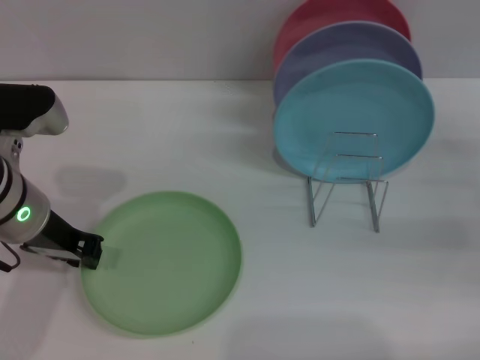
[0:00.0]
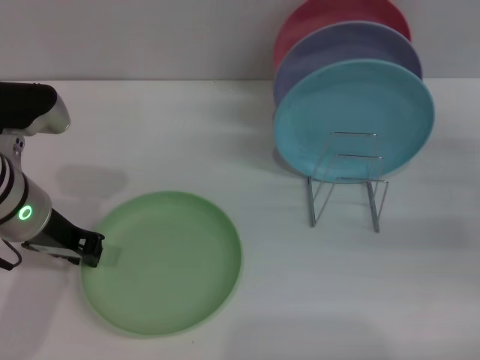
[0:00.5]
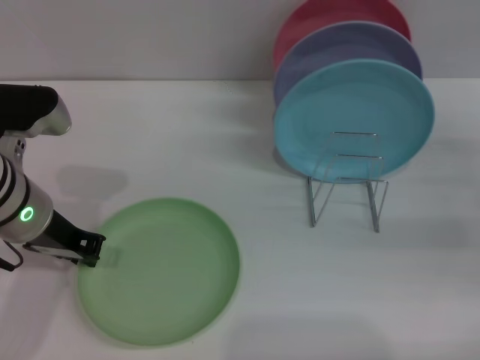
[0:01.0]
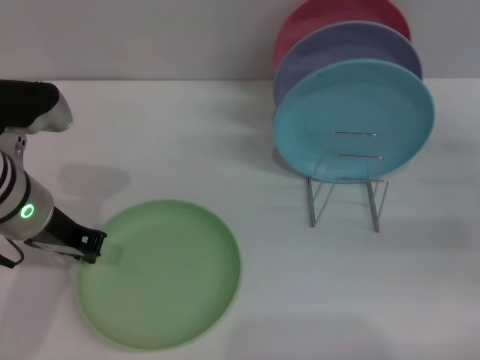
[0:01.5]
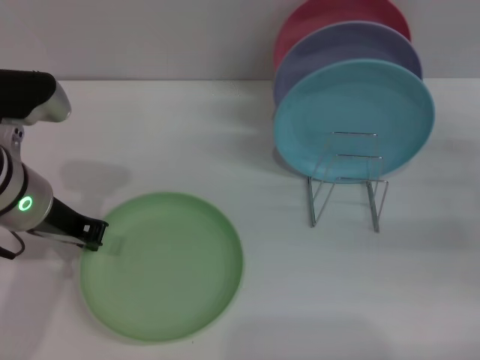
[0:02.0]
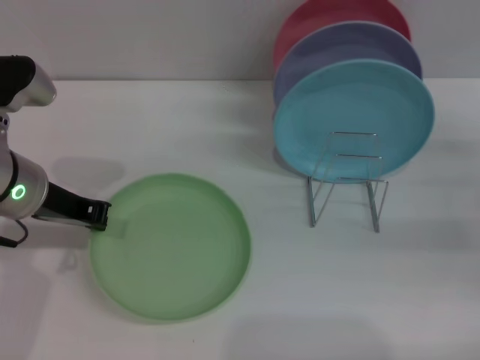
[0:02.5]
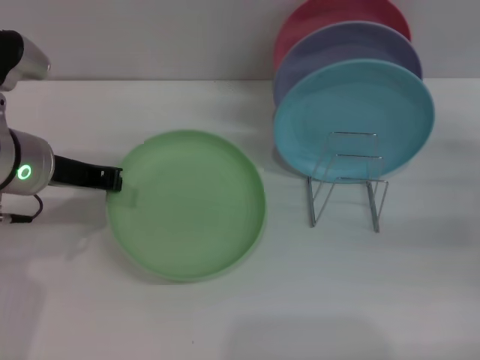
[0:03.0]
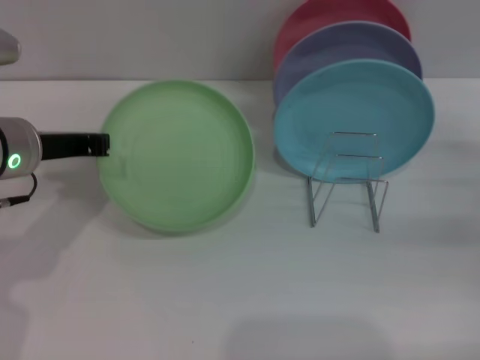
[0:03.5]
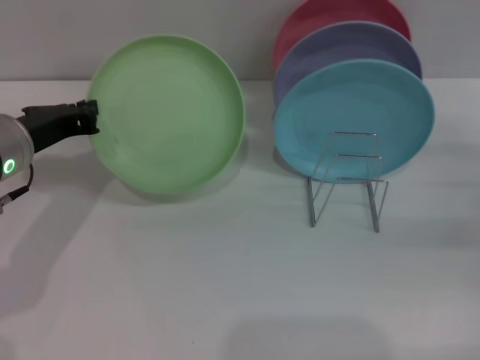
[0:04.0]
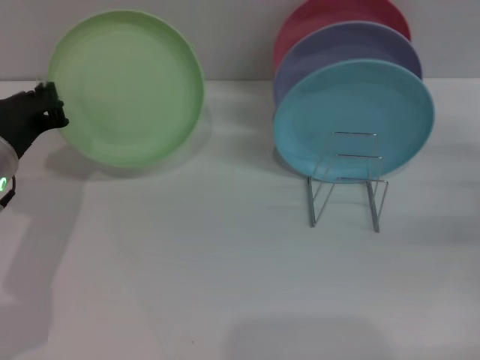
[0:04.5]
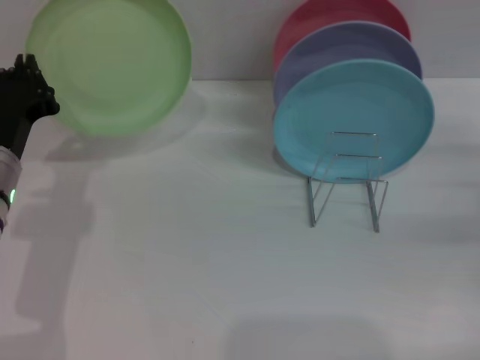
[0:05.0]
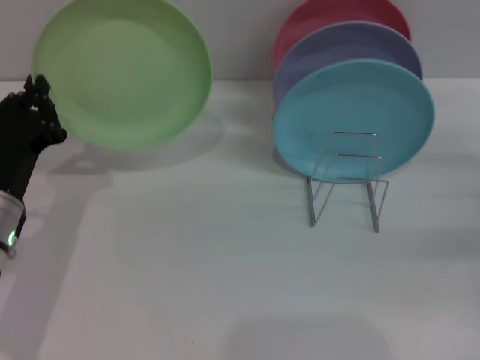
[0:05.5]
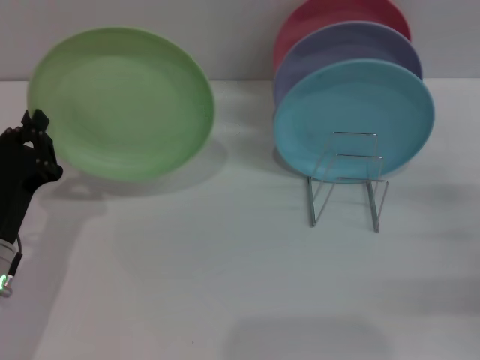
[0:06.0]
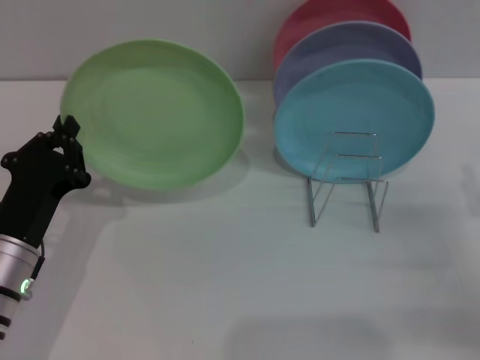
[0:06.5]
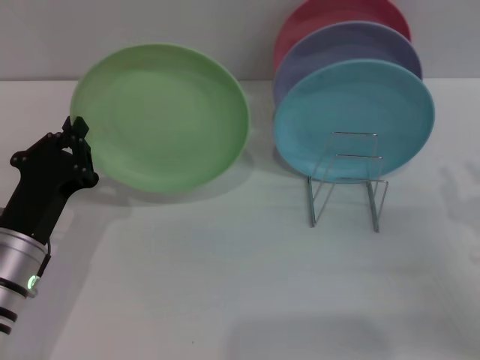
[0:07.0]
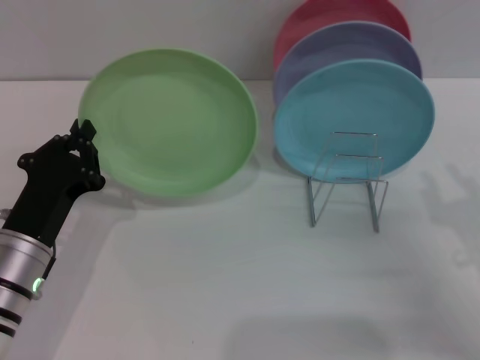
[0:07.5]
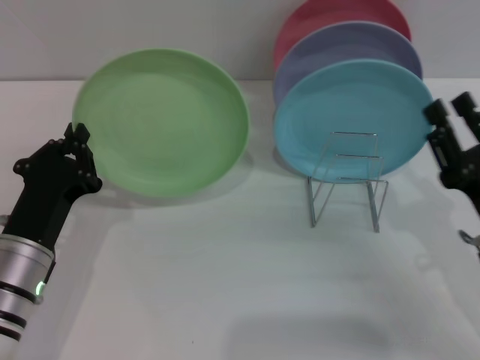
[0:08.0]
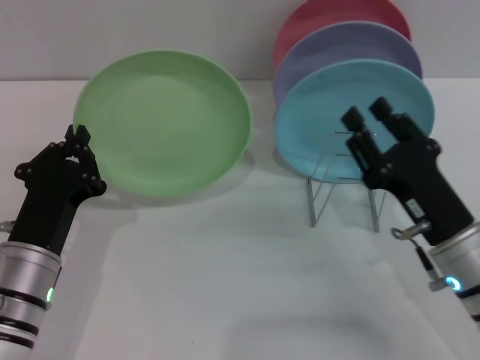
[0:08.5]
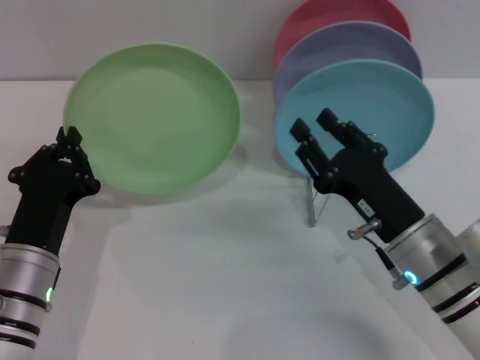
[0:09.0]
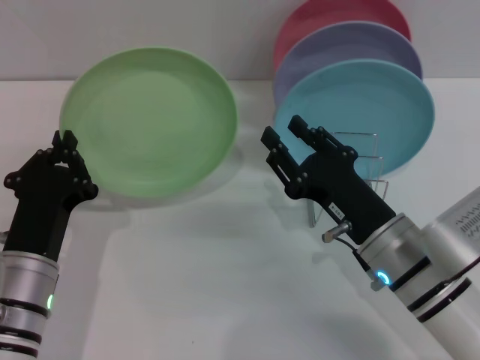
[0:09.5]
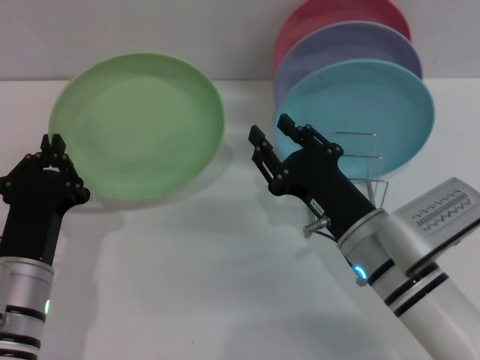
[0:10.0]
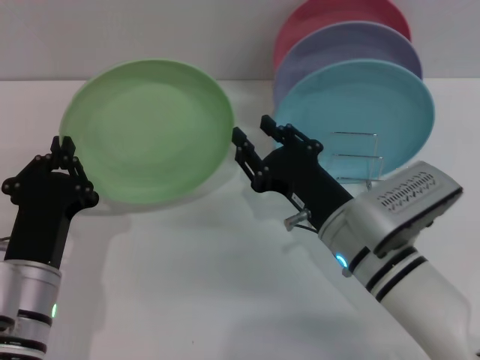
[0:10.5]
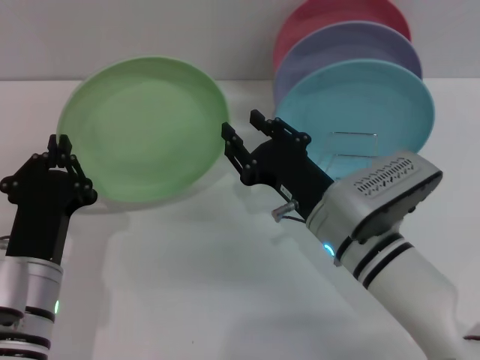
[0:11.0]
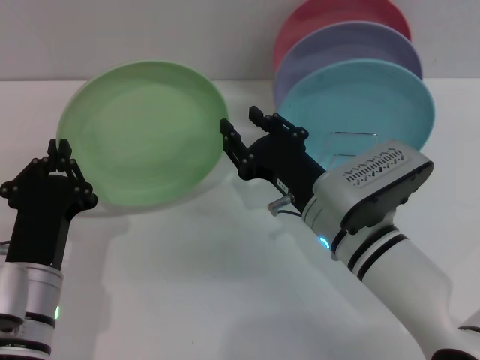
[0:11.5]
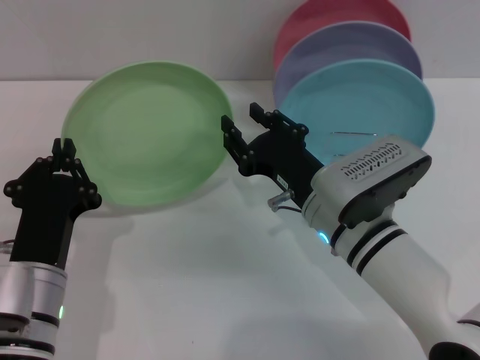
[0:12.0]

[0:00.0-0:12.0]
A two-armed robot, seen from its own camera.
Task of the whole recording: Grip the plate with one hand, pass it to the other, then set it on the shelf.
Step, 0:00.0 to 0:05.0: Pick up the plate with the left gripper.
0:00.0 to 0:02.0: Neither gripper changes place.
0:04.0 to 0:06.0: The left gripper shifts approximately 15 cm downward and backward. The right gripper moves backward, approximately 5 cm.
0:06.0 to 0:08.0: The right gripper moves to the left, roughly 10 cm.
0:08.0 to 0:10.0: The right gripper travels to the left by about 10 cm.
0:10.0 to 0:12.0: The grippers make only small movements.

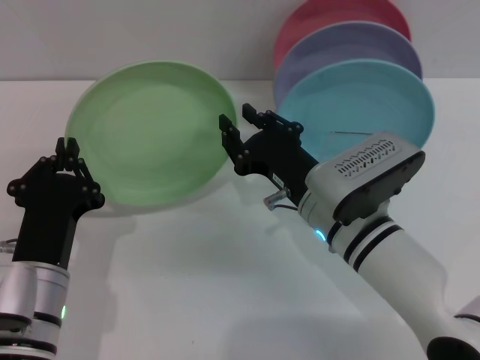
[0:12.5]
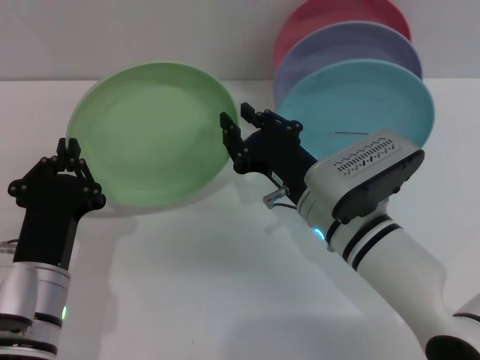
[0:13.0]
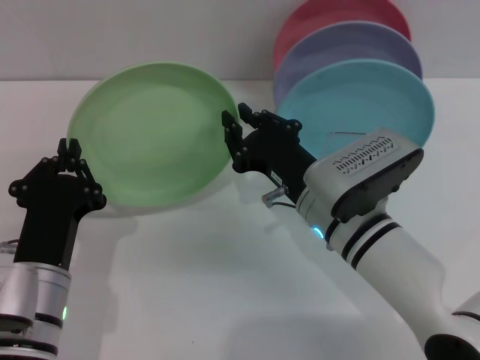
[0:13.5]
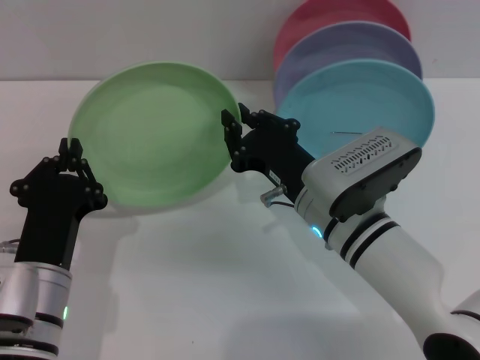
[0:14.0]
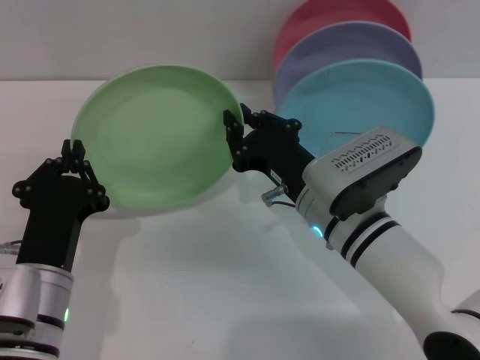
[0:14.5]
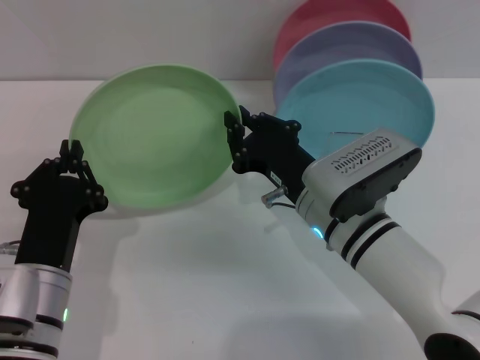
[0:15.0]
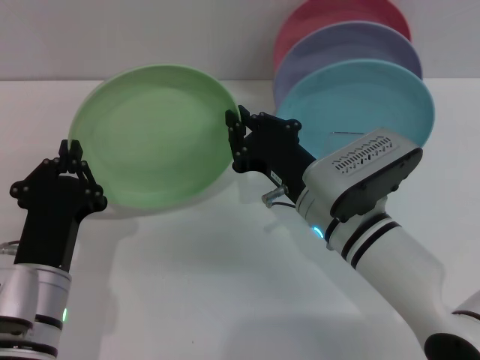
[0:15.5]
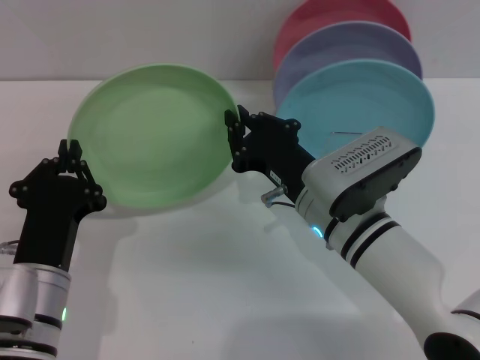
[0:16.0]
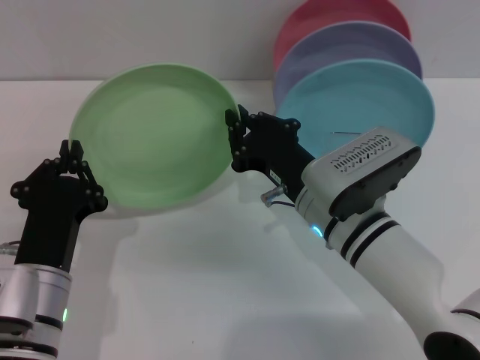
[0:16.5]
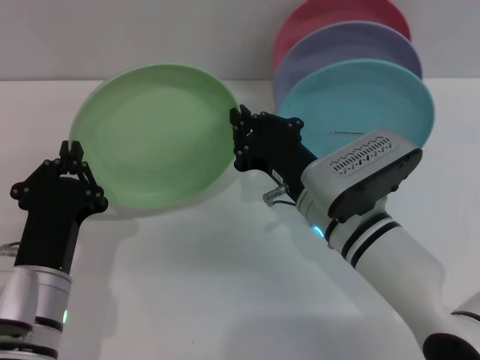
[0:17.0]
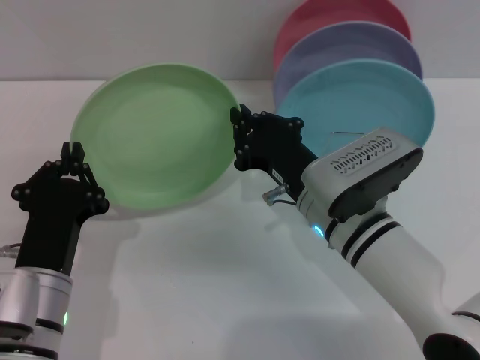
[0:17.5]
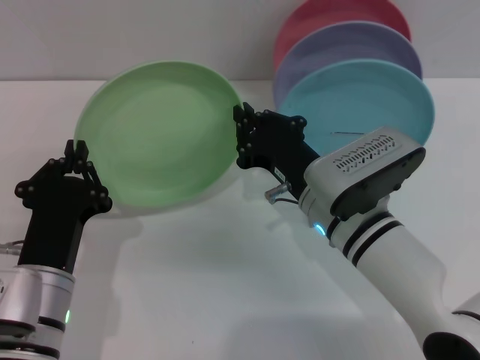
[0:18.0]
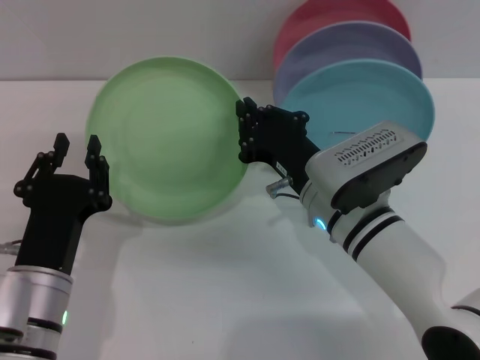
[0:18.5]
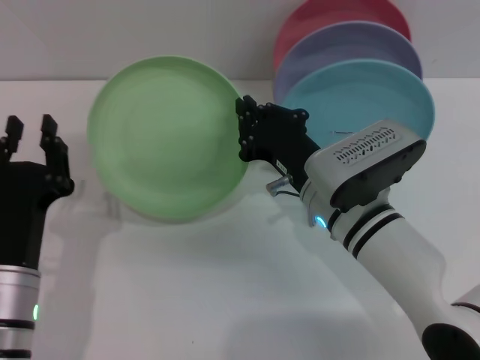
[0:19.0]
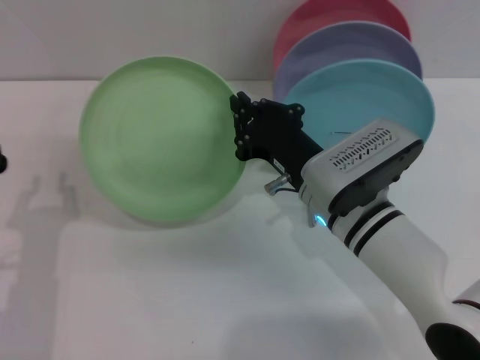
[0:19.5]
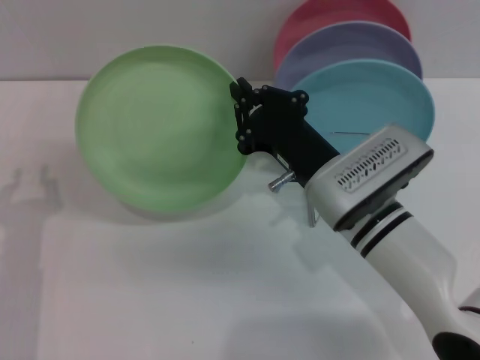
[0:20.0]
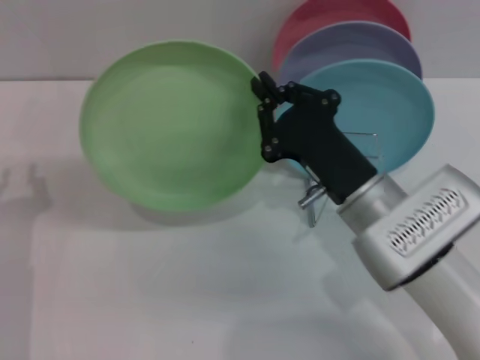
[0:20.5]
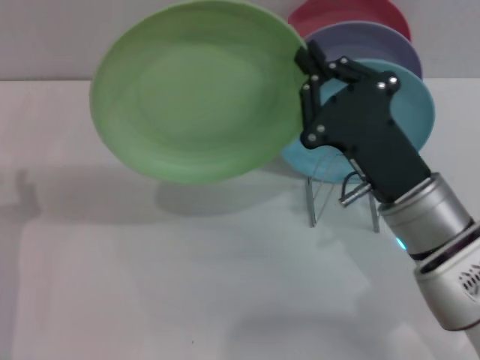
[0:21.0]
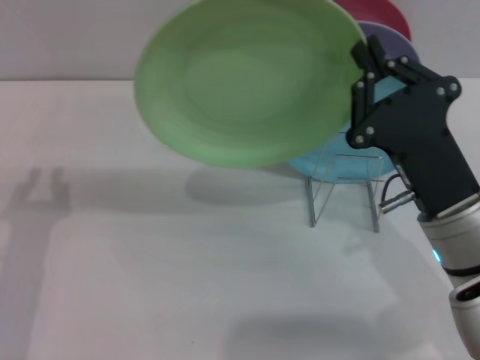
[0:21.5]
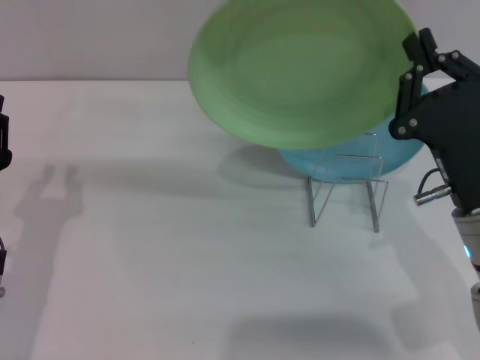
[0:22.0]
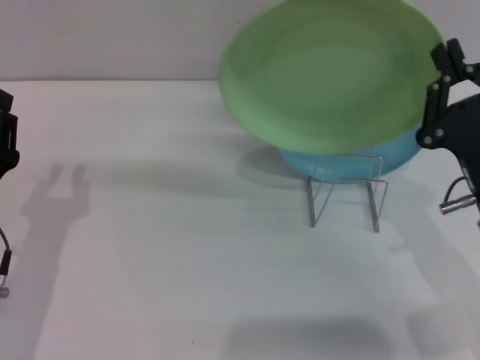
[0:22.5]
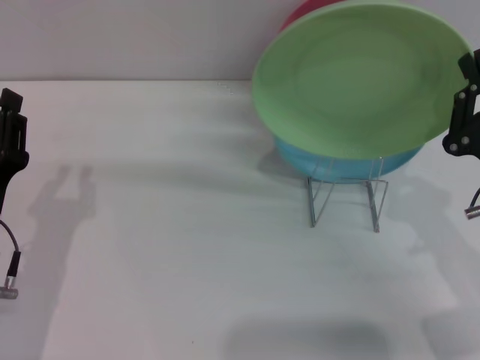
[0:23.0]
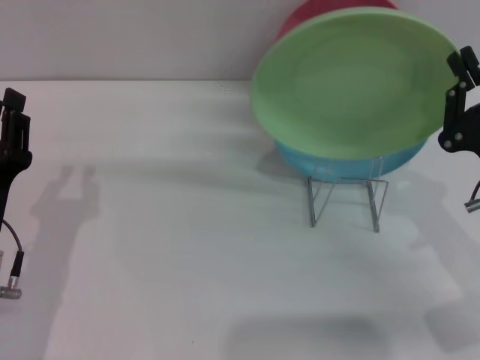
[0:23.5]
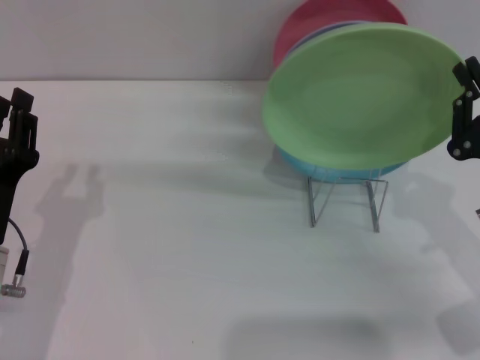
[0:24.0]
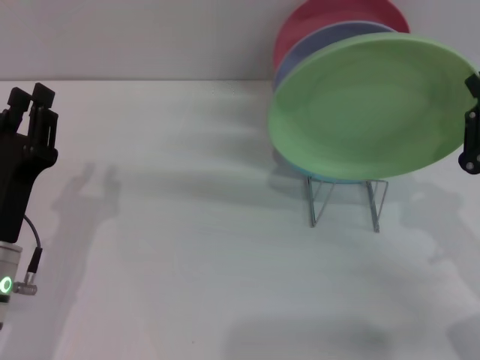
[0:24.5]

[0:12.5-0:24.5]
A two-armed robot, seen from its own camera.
Task of the whole recording: Grip the plate with one hand, pass it to the other, then set it on the shelf.
Step, 0:12.5 to 0:20.0: Pass the plate from the left gripper to the right gripper.
0:12.5 to 0:14.5: The right gripper closes.
0:14.5 to 0:18.5: Both grippers stay put.
0:18.5 to 0:20.5: The left gripper shifts roughly 10 cm to the left.
0:20.5 to 0:22.5: The right gripper is displaced to the right by about 10 cm.
0:22.5 to 0:24.5: The right gripper moves to the right, about 5 cm.

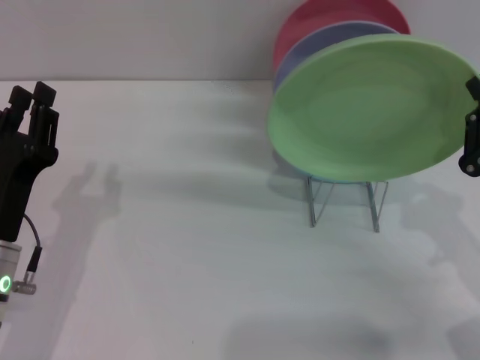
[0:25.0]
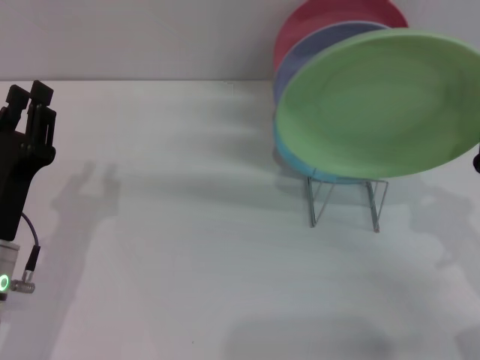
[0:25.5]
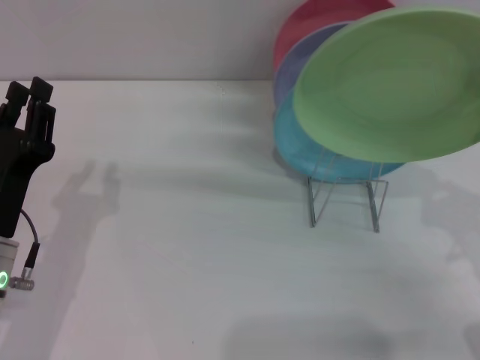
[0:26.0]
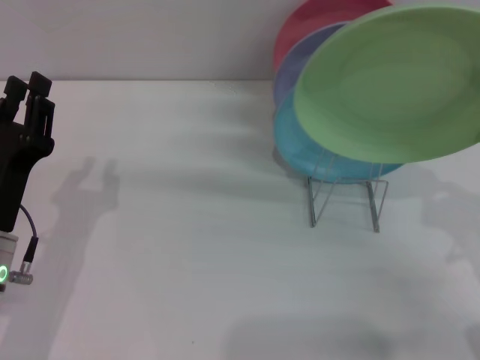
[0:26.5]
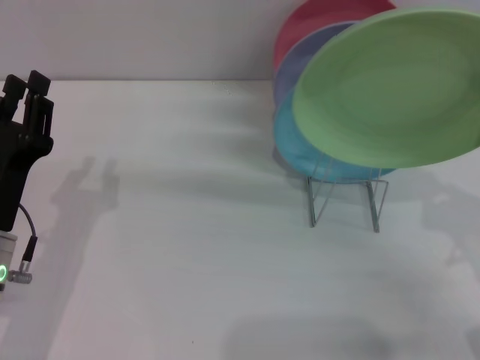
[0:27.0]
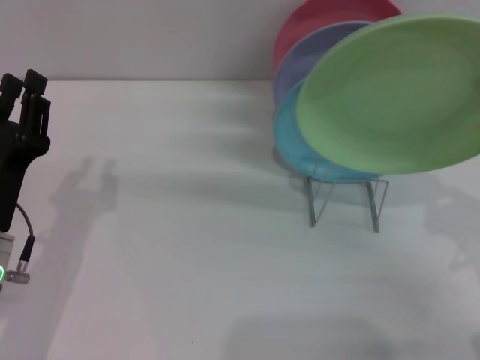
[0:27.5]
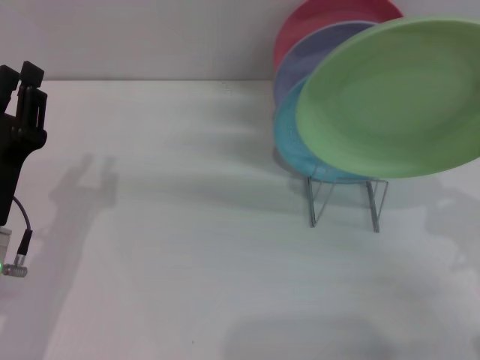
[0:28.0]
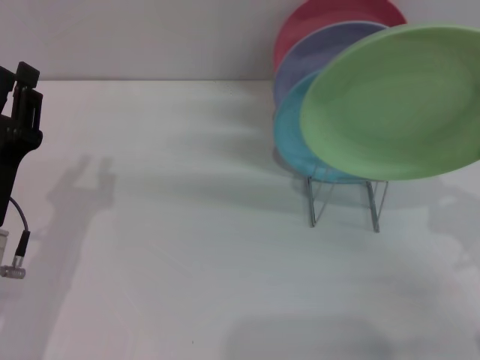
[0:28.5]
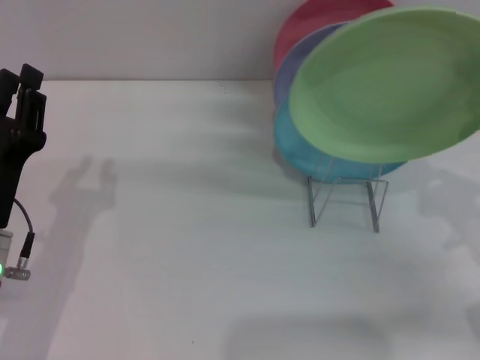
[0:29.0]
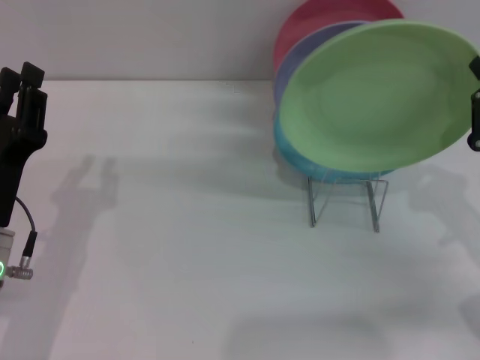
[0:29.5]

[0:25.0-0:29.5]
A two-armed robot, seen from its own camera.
Task of the whole recording: Grip the plate with one hand, pass it to the other, then set it on the shelf.
0:25.0 to 0:29.5: The grippers make only small movements.
